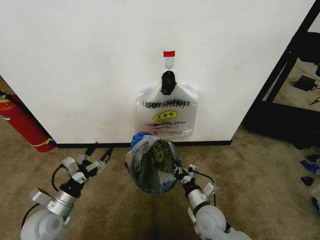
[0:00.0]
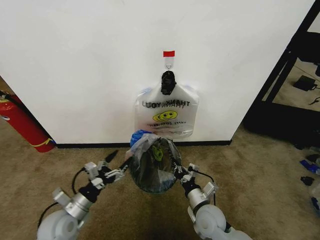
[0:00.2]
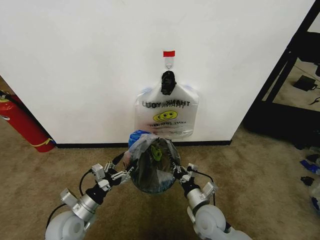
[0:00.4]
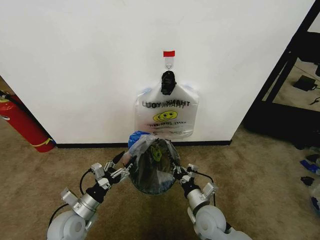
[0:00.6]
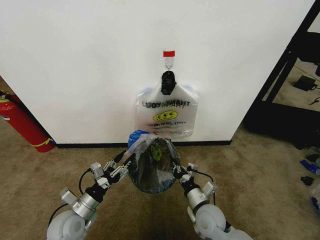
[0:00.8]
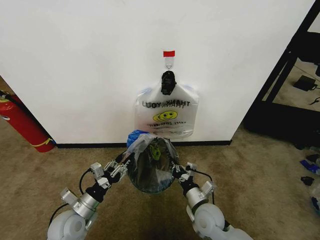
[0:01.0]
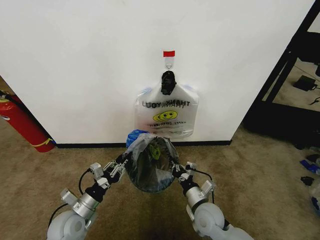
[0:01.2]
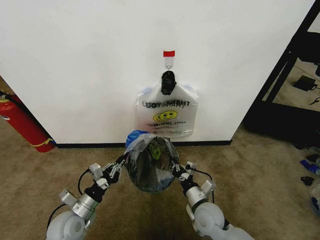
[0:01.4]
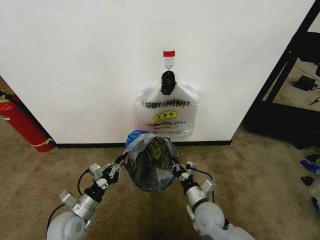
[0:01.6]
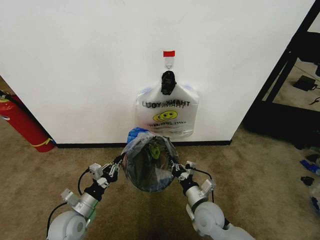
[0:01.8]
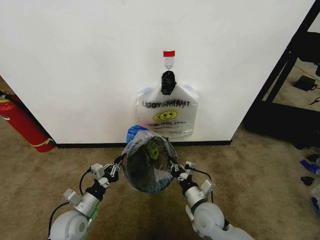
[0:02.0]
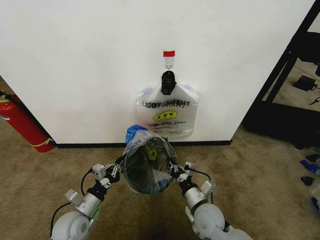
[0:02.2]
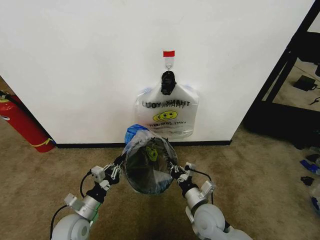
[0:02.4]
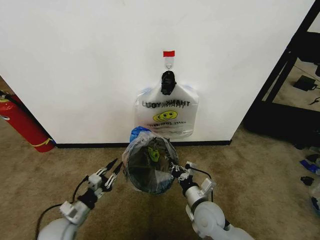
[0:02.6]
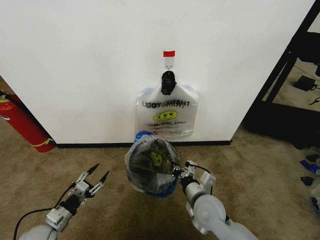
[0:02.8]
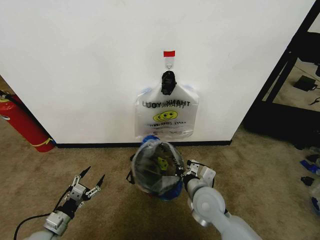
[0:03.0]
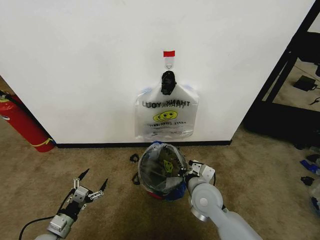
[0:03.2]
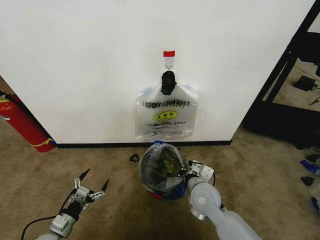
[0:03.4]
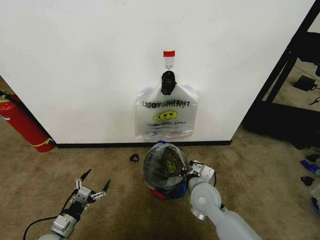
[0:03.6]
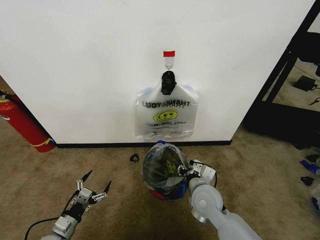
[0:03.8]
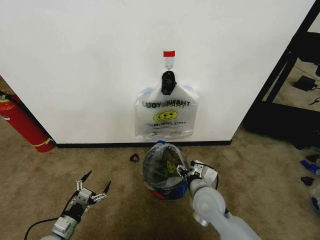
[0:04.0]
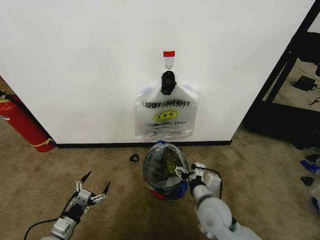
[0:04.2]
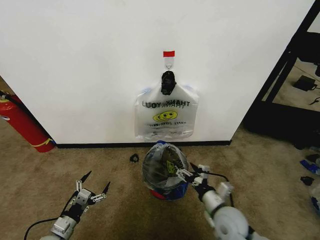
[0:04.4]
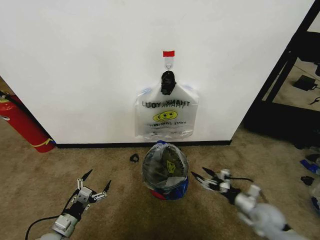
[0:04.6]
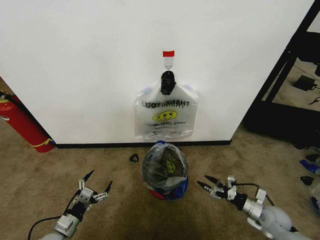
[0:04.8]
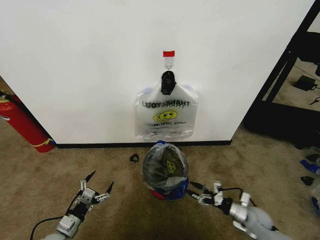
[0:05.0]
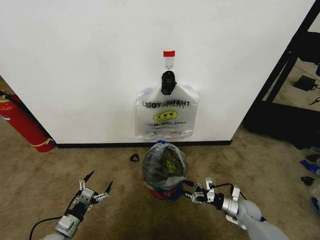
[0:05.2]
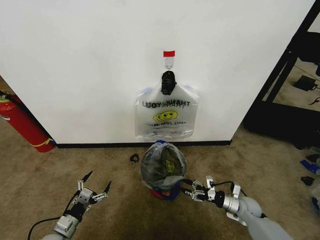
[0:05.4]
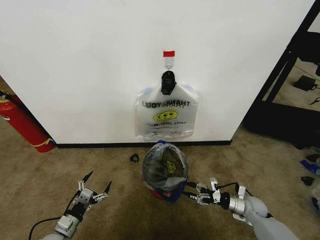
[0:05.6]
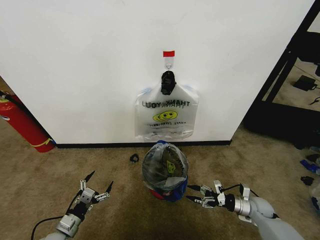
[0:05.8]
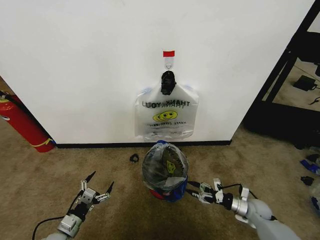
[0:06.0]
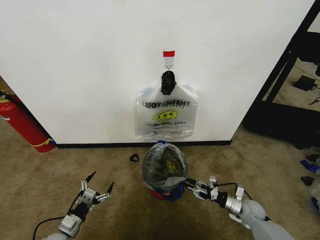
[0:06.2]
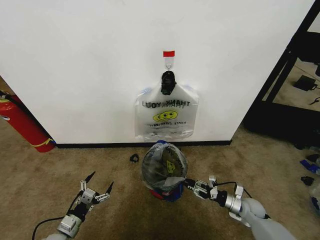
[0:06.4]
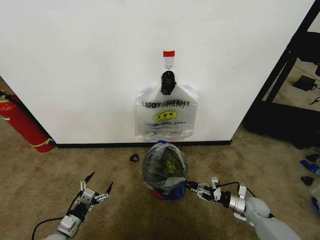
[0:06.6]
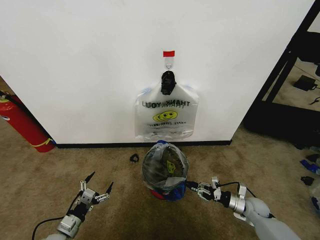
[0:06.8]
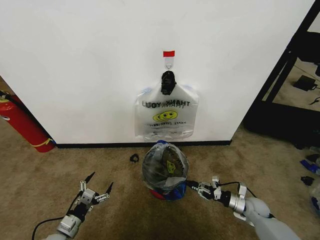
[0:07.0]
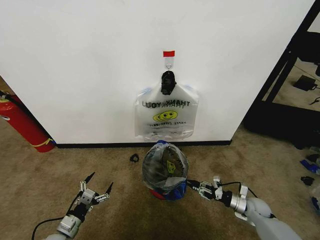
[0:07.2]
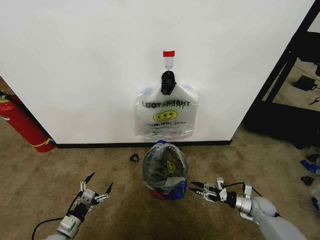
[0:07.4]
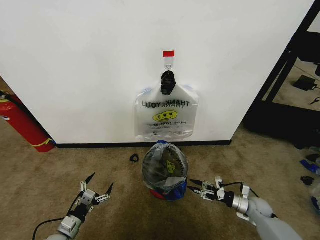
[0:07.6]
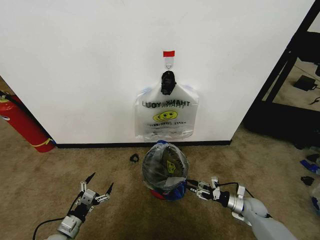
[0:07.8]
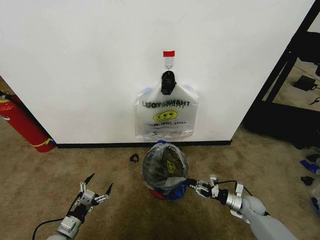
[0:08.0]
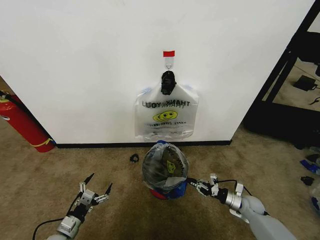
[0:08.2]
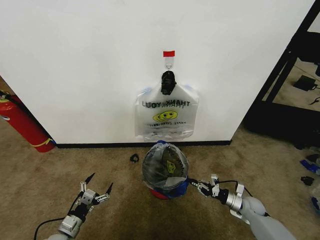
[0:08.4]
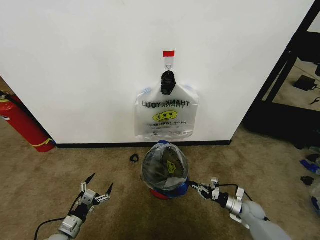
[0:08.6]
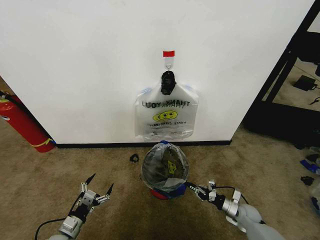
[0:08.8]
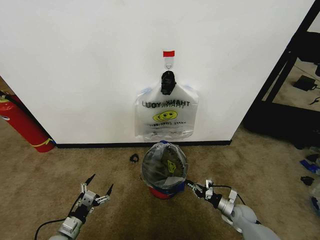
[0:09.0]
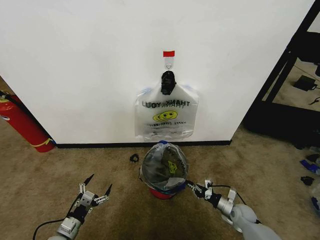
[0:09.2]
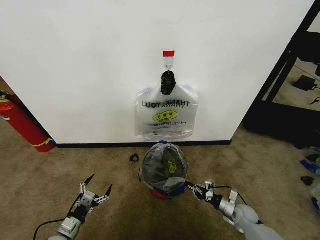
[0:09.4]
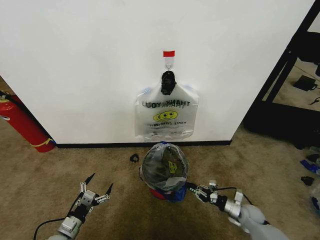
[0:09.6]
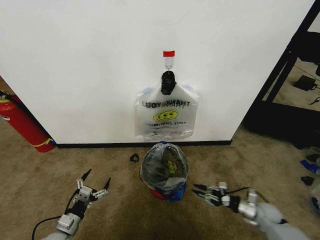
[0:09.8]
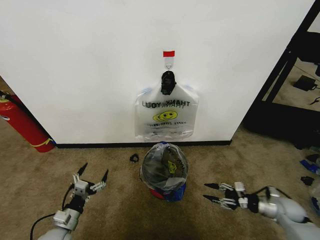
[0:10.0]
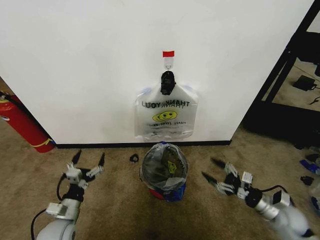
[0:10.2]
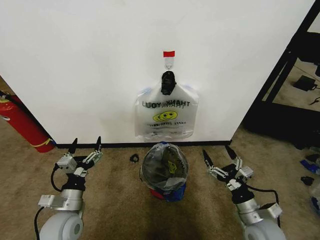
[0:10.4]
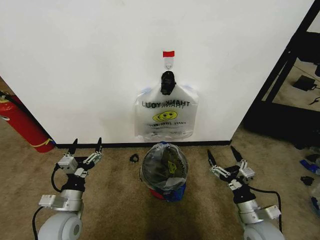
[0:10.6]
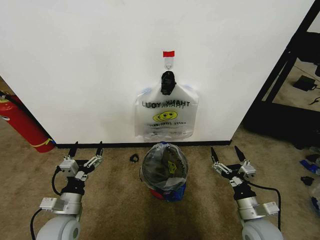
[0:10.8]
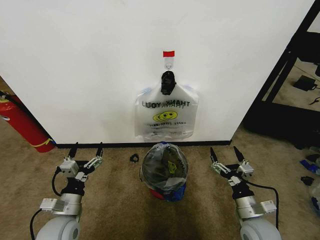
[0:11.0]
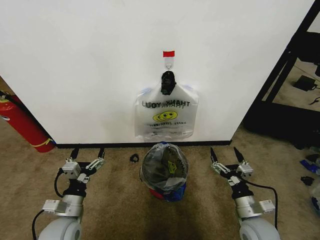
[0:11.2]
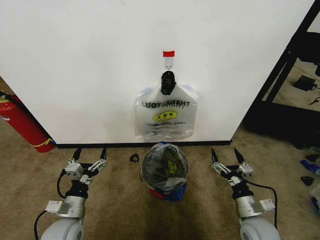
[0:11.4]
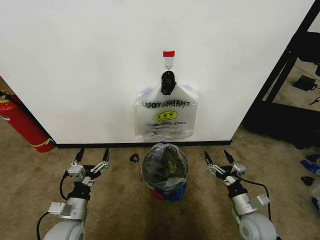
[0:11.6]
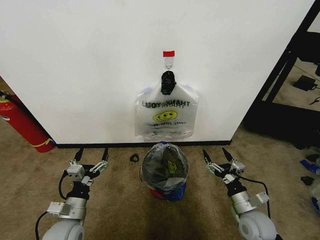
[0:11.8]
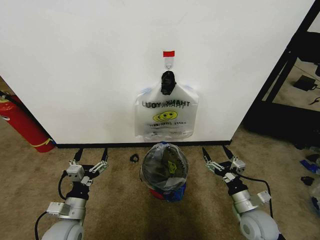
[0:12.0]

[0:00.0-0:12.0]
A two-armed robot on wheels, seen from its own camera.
Task of the whole recording: Pick up the garbage bag from the wall and place it over the trash bin.
0:00.0 to 0:01.6: The left gripper shifts some 5 cm to the right, and closes.
0:01.6 to 0:03.0: The left gripper shifts some 10 cm to the left and downward, and opens its fingers; the right gripper goes some 10 cm upward.
0:03.0 to 0:04.4: The right gripper travels to the right and downward by approximately 10 cm, and opens its fingers.
0:04.4 to 0:06.0: The right gripper goes left and right, some 20 cm each way, reversing 2 times.
0:06.0 to 0:07.6: The right gripper closes, then reopens.
0:07.6 to 0:09.0: The right gripper goes about 5 cm to the left, and closes up.
0:09.0 to 0:10.4: The right gripper goes approximately 20 cm upward and backward, and opens up. The left gripper moves upward and to the right, approximately 15 cm.

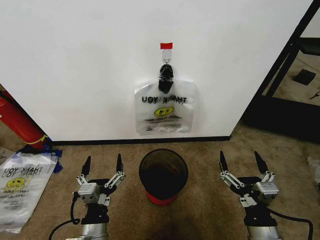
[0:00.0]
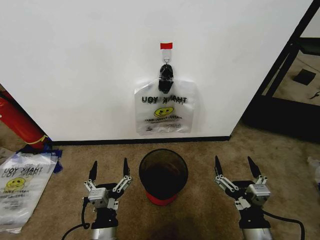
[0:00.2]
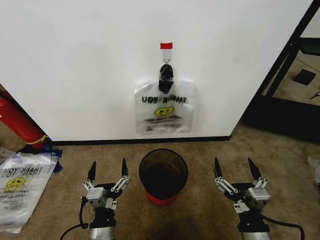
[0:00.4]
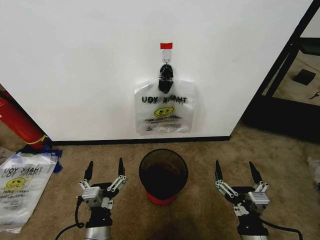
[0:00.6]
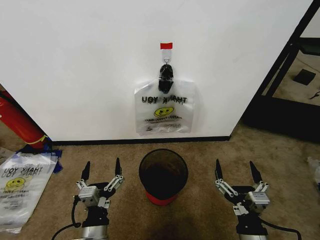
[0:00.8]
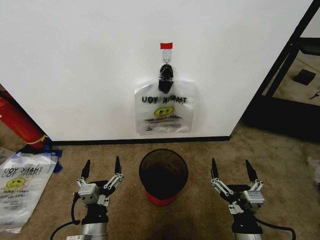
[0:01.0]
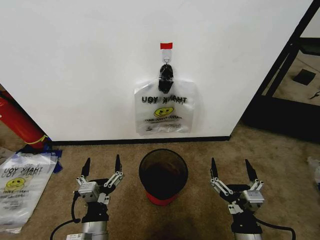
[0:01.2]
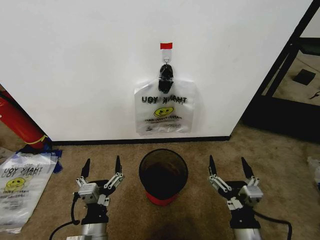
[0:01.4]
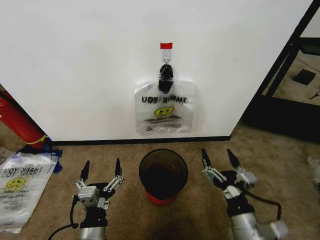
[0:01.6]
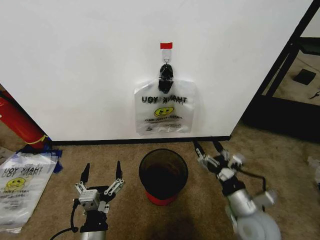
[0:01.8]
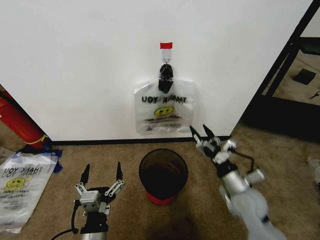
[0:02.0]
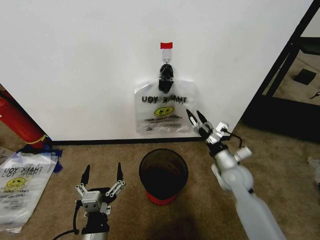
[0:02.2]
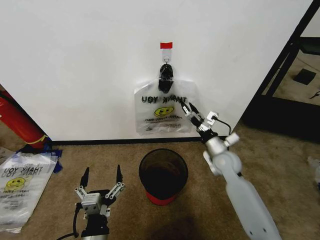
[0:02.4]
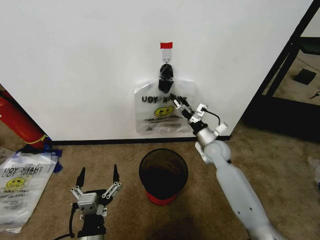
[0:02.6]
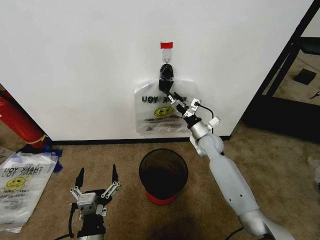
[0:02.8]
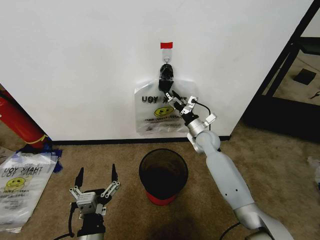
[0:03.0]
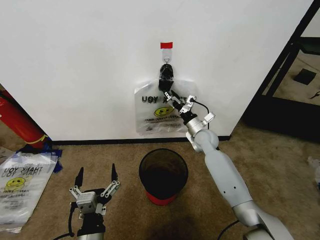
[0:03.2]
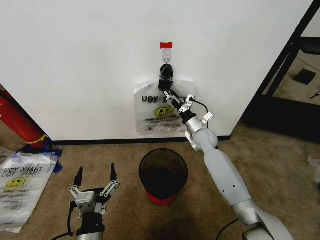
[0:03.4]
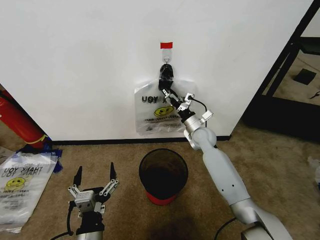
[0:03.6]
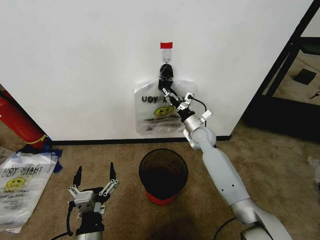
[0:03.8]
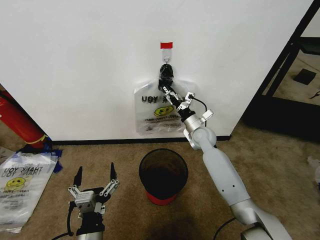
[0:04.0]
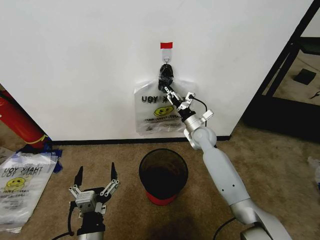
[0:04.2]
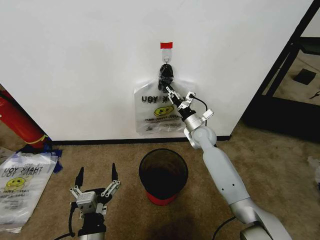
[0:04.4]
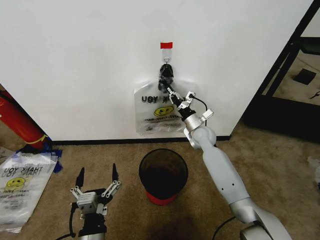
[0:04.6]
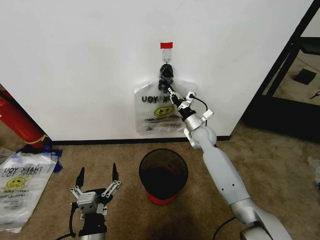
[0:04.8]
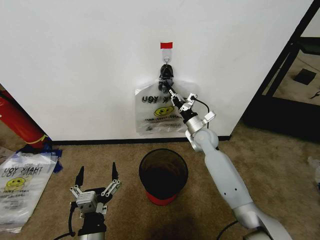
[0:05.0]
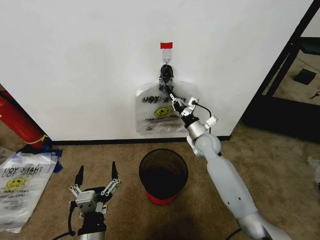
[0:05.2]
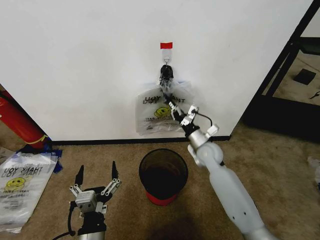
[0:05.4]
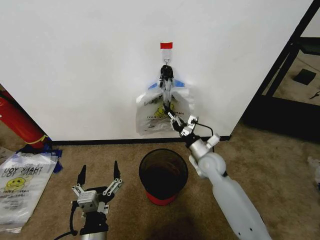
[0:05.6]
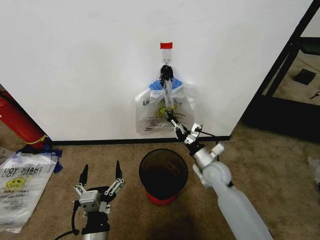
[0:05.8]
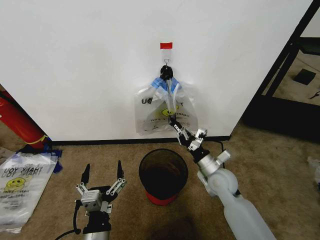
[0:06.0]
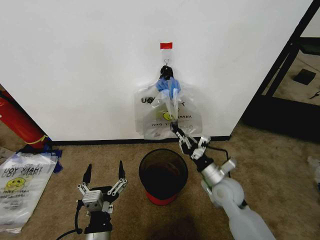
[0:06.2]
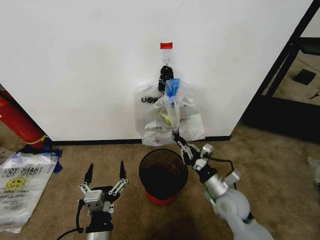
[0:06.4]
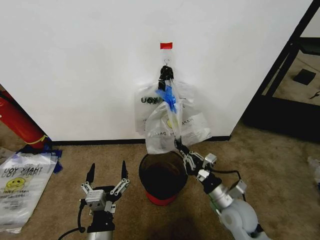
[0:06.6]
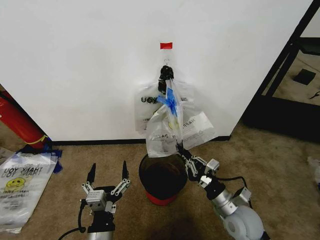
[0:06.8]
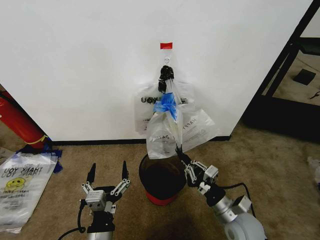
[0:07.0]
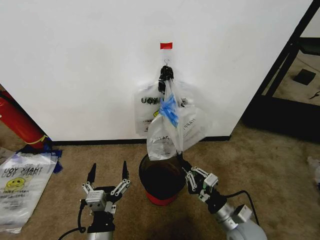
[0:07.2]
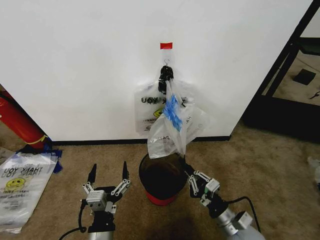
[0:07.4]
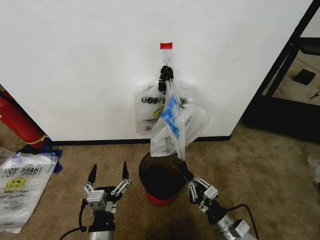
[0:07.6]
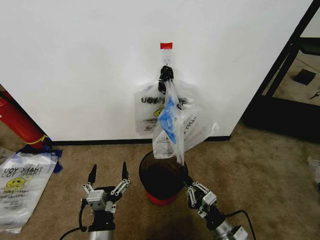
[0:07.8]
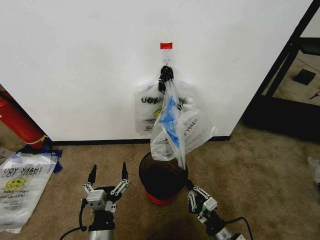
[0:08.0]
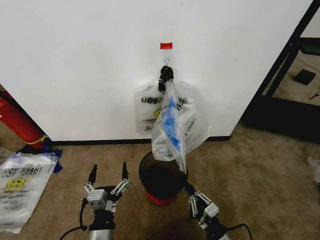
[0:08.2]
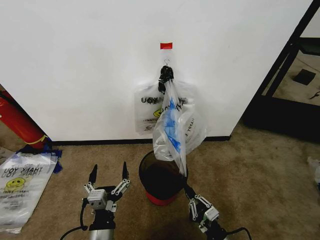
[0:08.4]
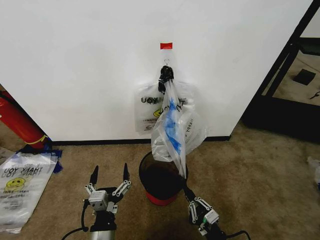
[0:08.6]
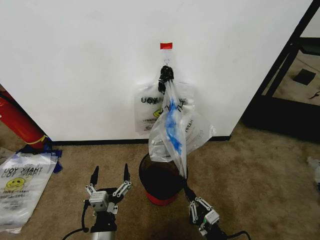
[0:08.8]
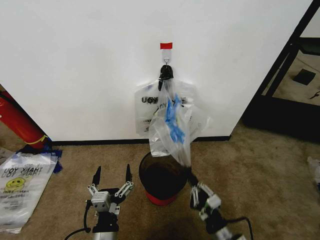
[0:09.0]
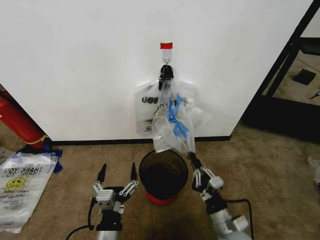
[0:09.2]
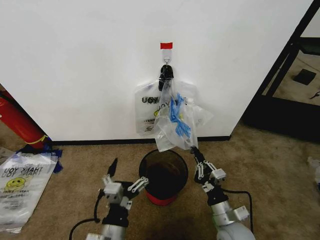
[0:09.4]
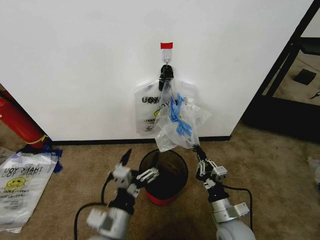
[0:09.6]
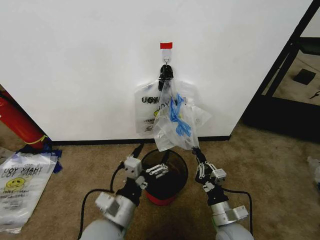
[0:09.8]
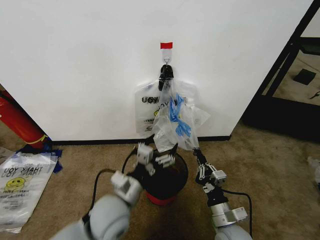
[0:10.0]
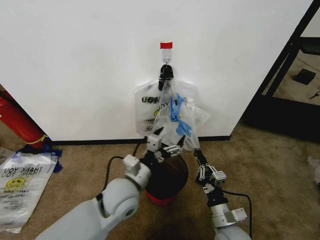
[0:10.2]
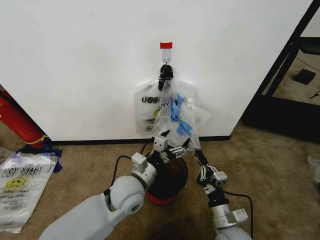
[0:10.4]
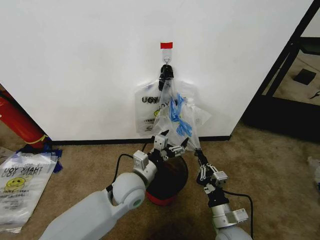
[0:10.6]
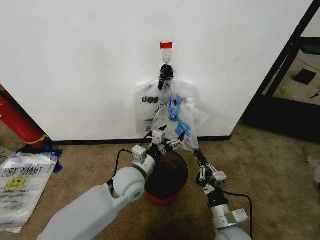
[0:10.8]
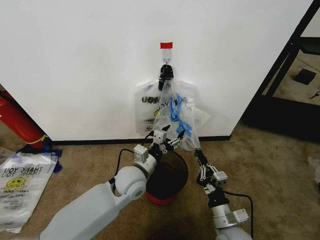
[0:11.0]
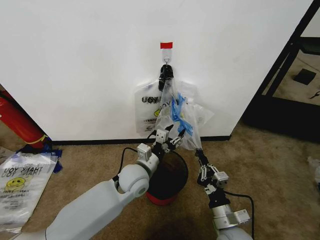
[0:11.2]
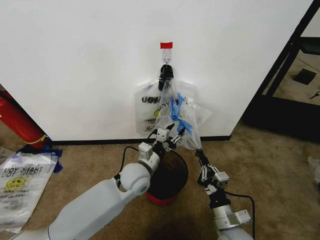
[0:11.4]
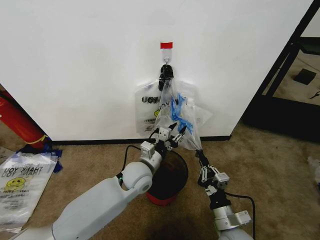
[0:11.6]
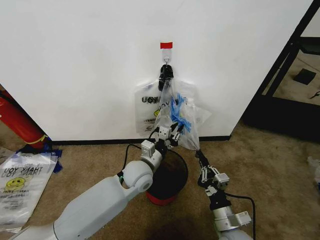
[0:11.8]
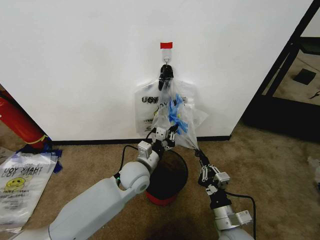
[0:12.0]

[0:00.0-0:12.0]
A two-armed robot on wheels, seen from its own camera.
Task of the whole recording: Pick up the garbage bag from the wall and place it over the trash bin.
0:01.6 to 0:03.0: The right gripper travels forward by some 35 cm.
0:03.0 to 0:04.4: The right gripper closes its fingers.
0:04.4 to 0:06.0: The right gripper shifts approximately 15 cm backward.
0:06.0 to 0:07.6: The right gripper travels backward and downward by approximately 20 cm.
0:09.0 to 0:10.4: The right gripper shifts by roughly 5 cm, while the left gripper heads forward, covering roughly 20 cm.
0:10.4 to 0:12.0: The left gripper shifts about 5 cm forward, and closes up.
